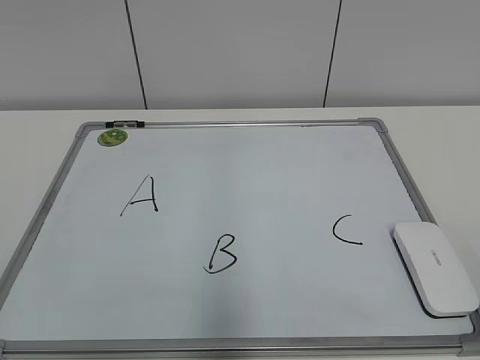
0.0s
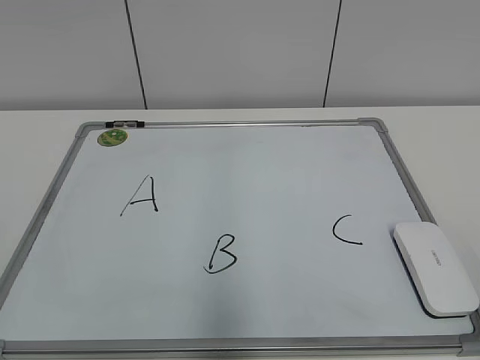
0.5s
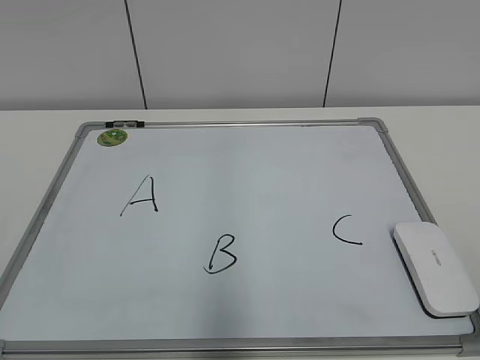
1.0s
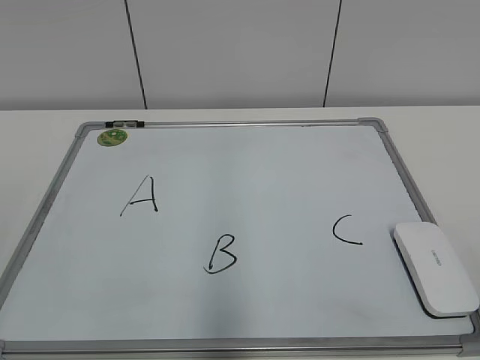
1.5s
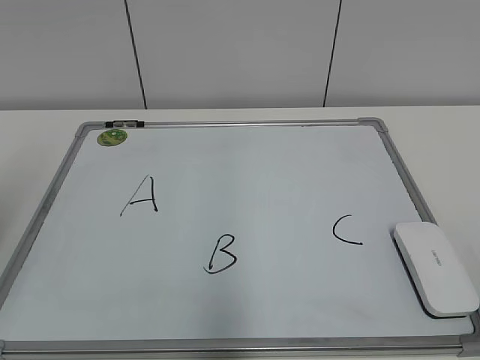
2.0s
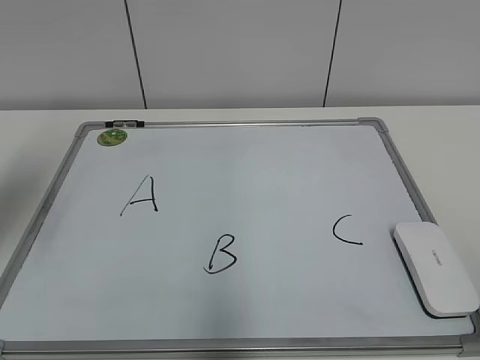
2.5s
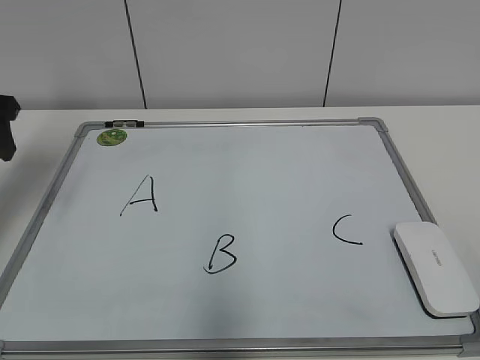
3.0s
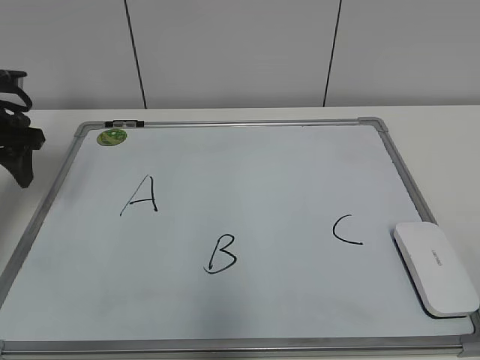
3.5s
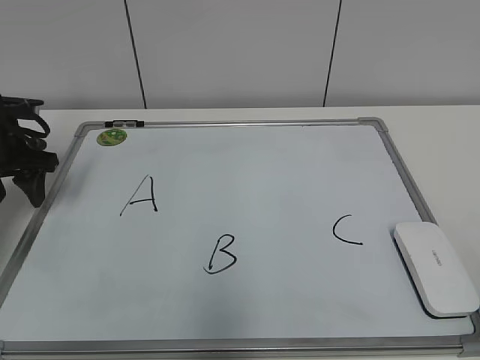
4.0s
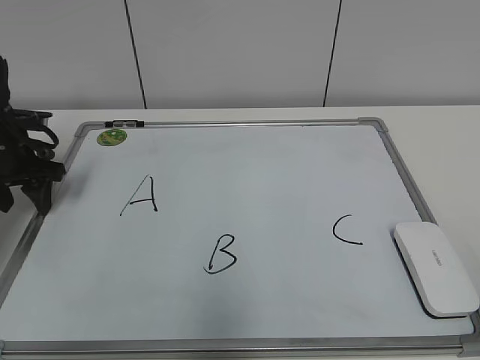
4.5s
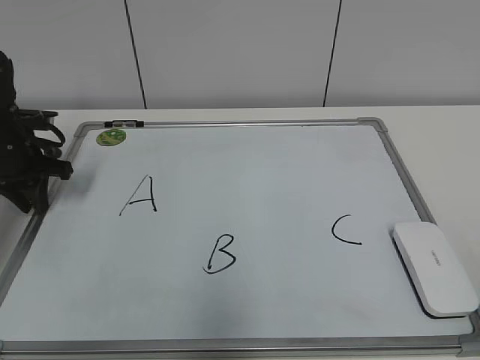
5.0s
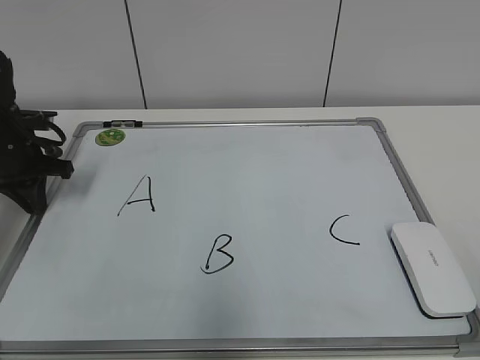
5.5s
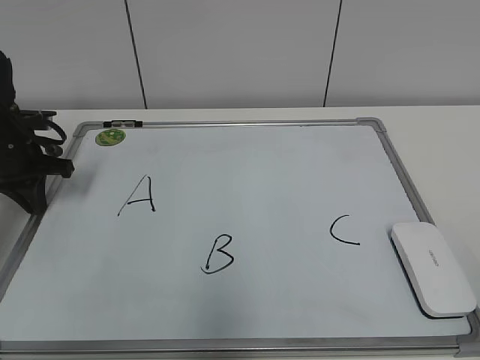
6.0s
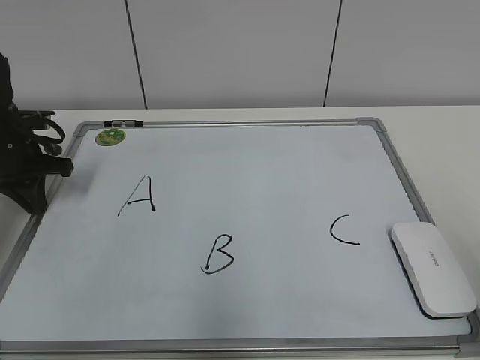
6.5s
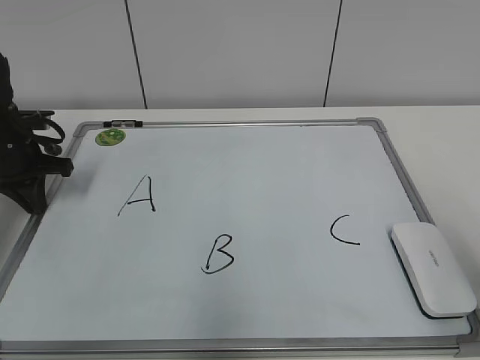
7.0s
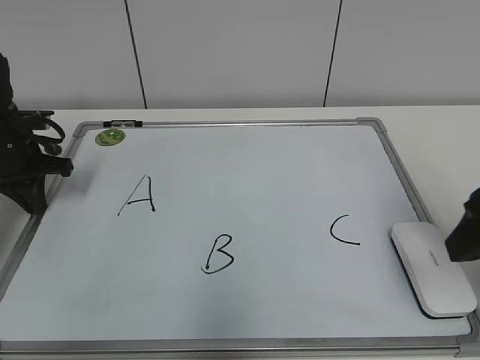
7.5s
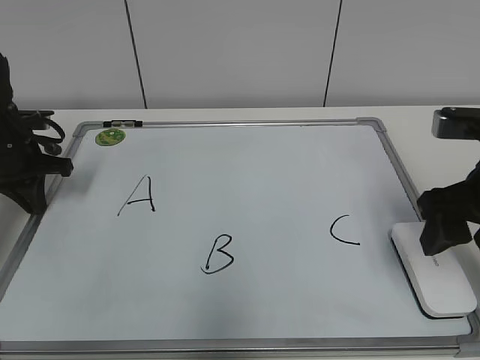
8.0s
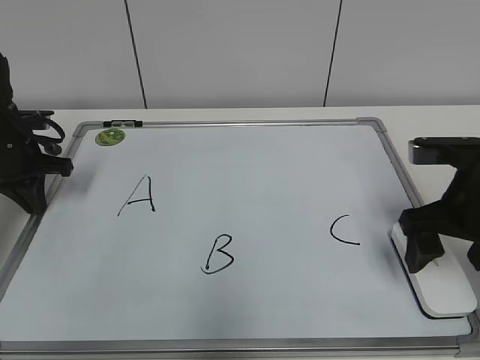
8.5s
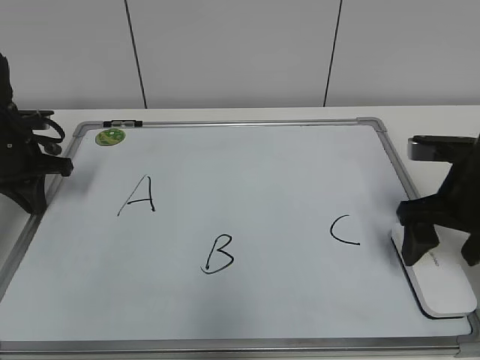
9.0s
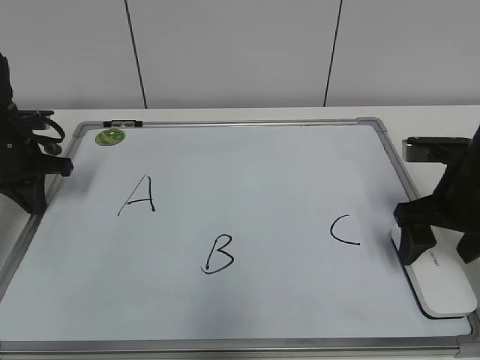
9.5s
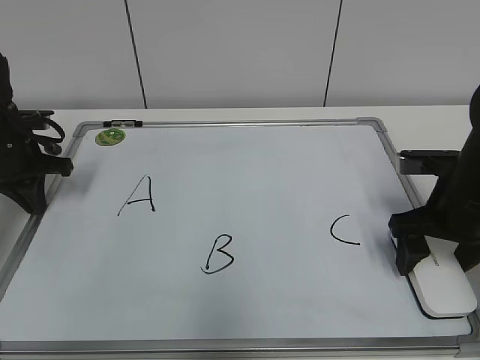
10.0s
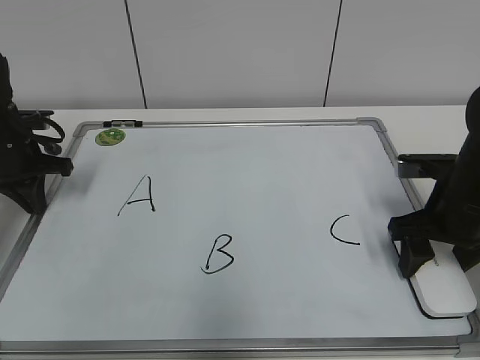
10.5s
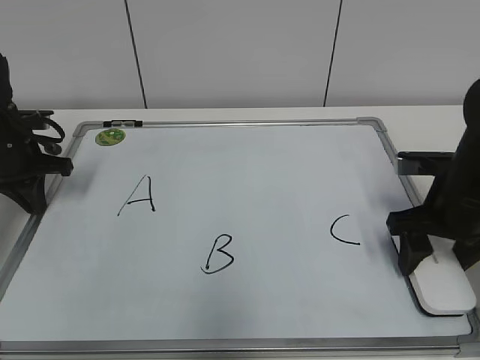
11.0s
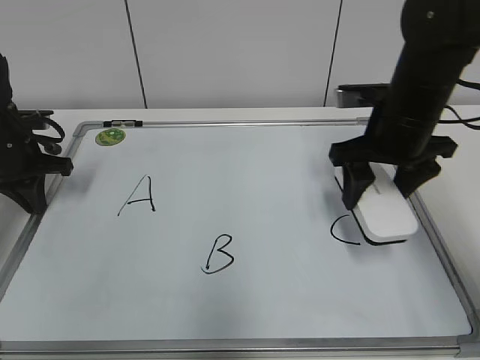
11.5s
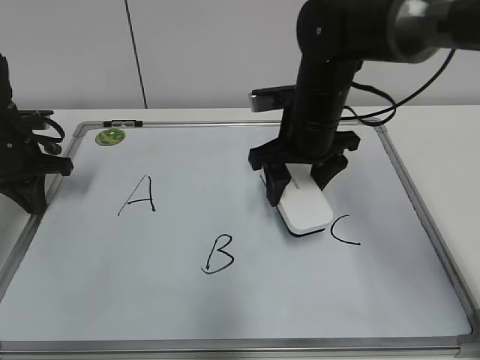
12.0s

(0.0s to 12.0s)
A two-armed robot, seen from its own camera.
Task of the whole recording: pick up the eraser on the blackboard and erase the letter "B".
Step, 0.0s - 5.0s: Hold the drawing board steady with your left hand.
Step, 5.5s - 10.5s: Grab the eraser with your right hand.
2.0s - 4.0s: The left gripper shifts about 30 cm forward and downward.
4.0s - 6.0s: The left gripper closes its fingers.
6.0s - 8.0s: The right gripper is displaced forward by about 25 cm.
8.0s - 10.0s: The right gripper is displaced downward and forward by roughly 10 cm, and opens its fingers.
10.0s - 12.0s: The right gripper is displaced to the left and forward by some 20 cm, and closes up.

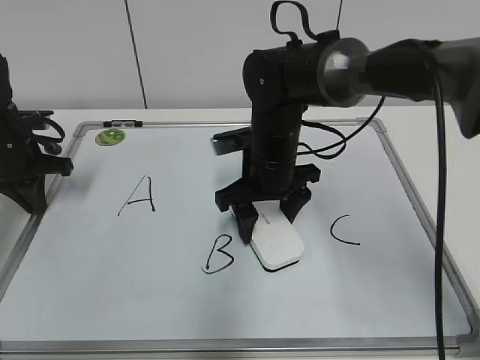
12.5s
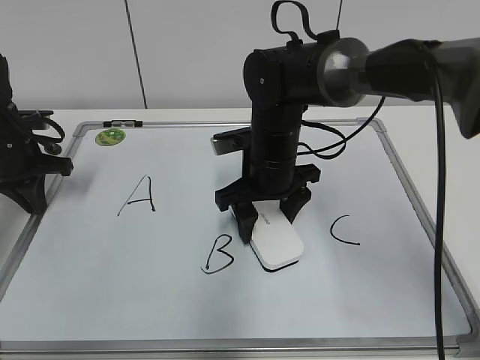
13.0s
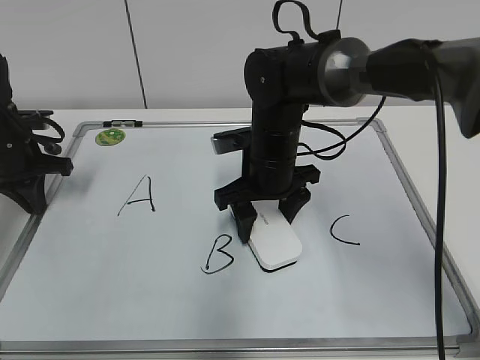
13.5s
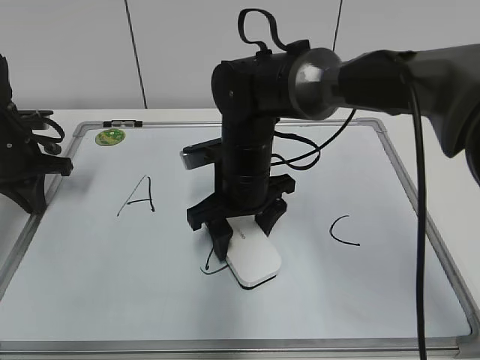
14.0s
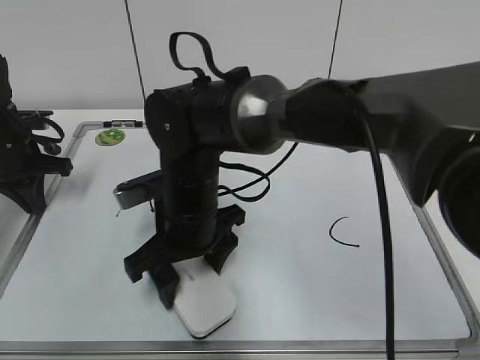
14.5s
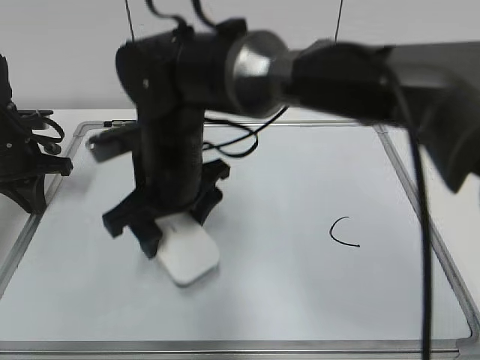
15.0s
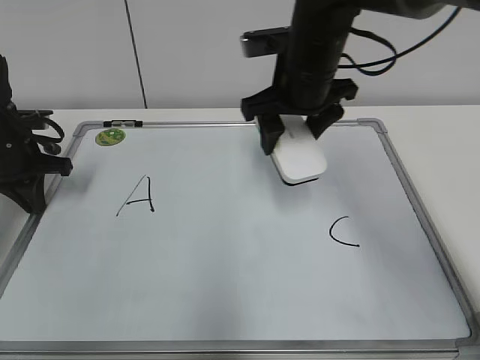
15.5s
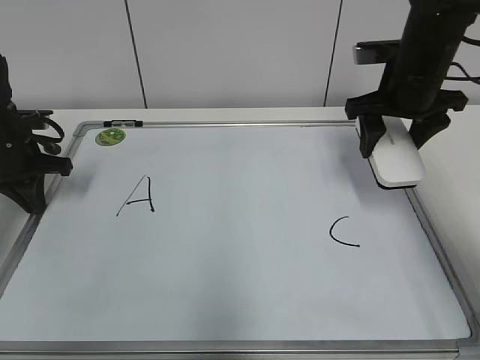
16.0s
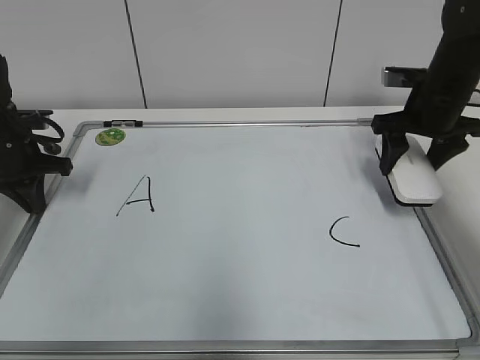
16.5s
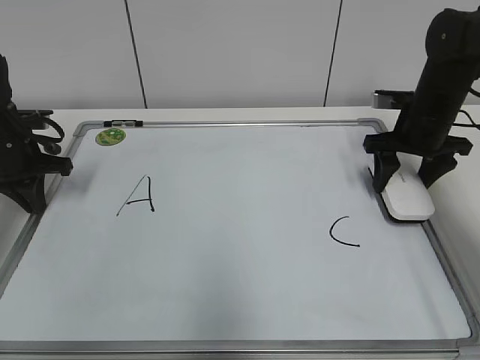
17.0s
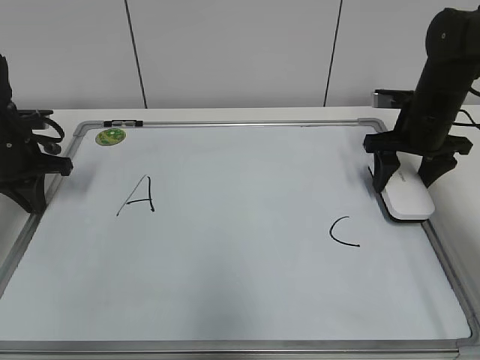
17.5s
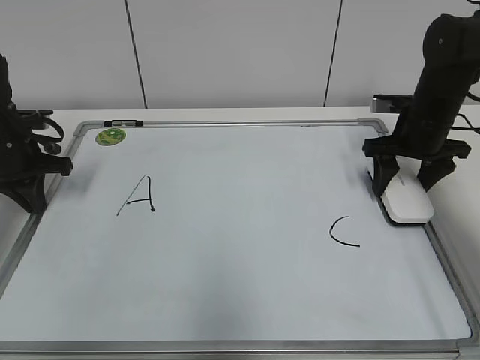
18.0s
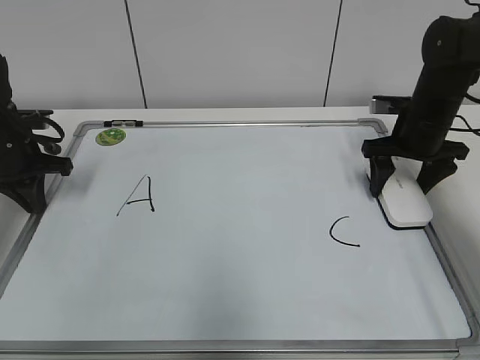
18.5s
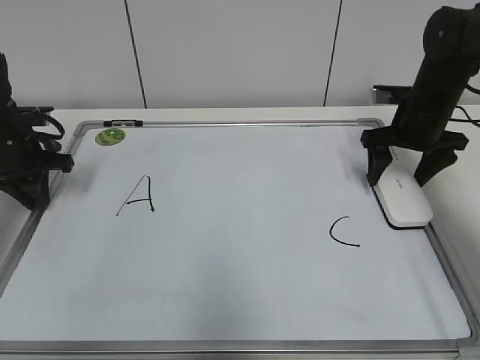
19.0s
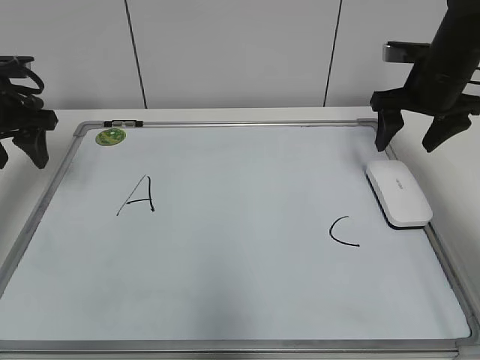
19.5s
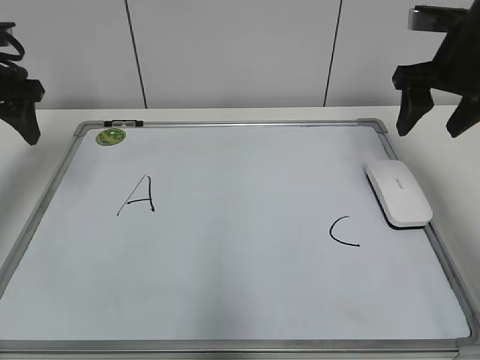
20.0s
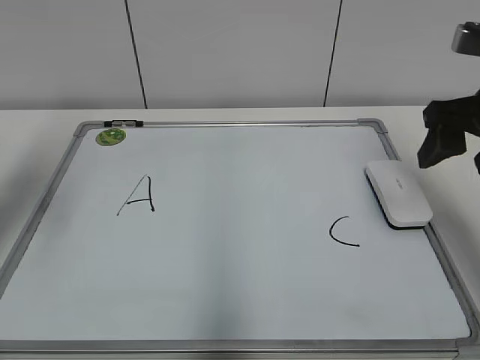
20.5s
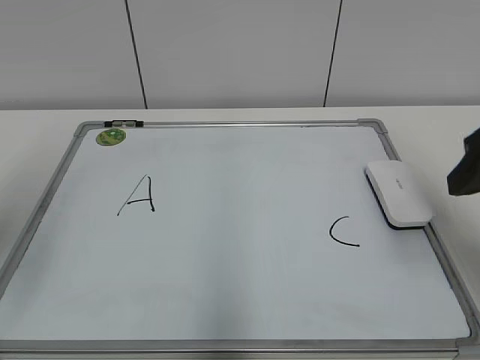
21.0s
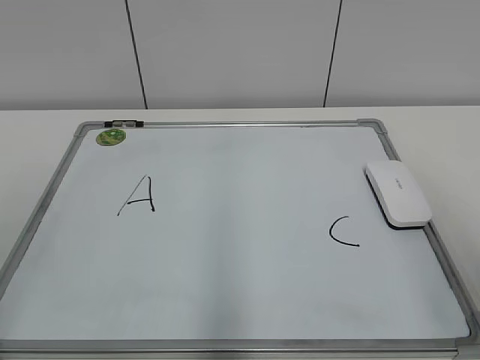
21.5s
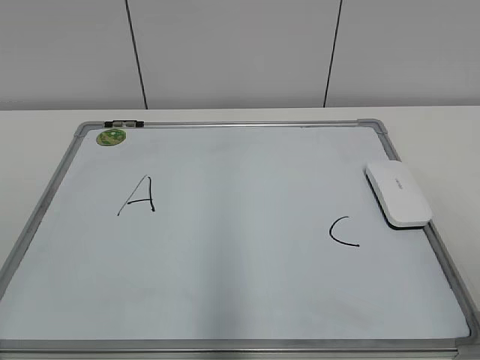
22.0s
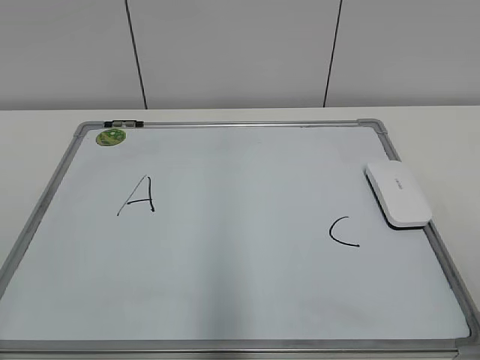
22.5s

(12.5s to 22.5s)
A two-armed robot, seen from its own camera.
Task of the whole recording: pick up the eraser on the blackboard and erase the letter "B".
Step, 12.5s - 14.5s: Erase the letter B with your right hand.
Step, 15.0s - 18.0s: Put down the eraser with your right hand.
12.5s - 14.5s: The right gripper heads to the left and backward, covering roughly 15 cm.
14.5s - 16.5s: The right gripper shifts roughly 35 cm to the right and forward.
16.5s - 18.5s: The right gripper opens its fingers.
18.5s - 20.5s: The left gripper travels upward and backward by approximately 20 cm, and opens. The right gripper is displaced backward and upward by some 20 cm.
20.5s - 22.5s: The two grippers go about 25 cm backward.
